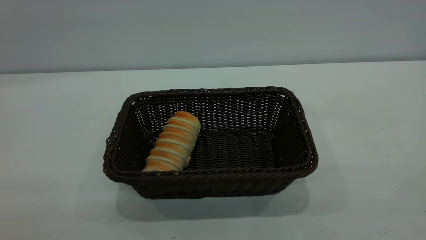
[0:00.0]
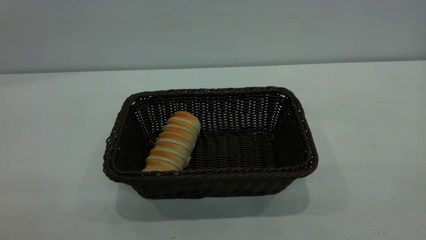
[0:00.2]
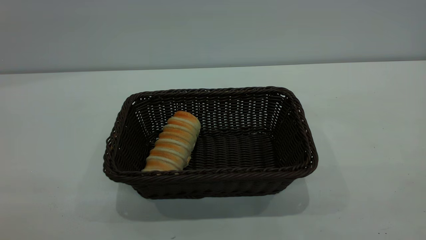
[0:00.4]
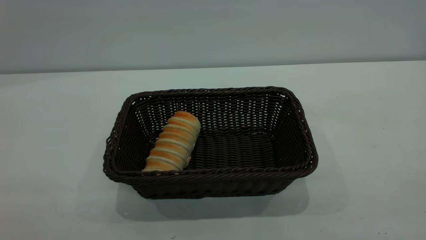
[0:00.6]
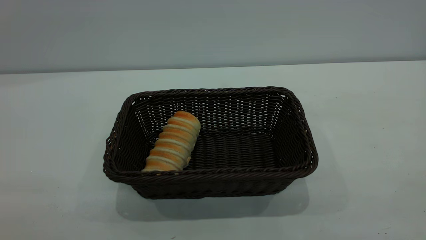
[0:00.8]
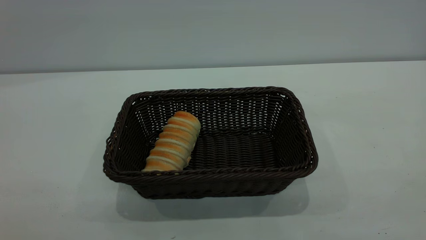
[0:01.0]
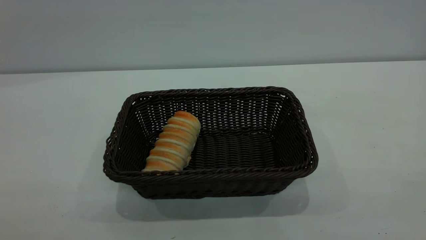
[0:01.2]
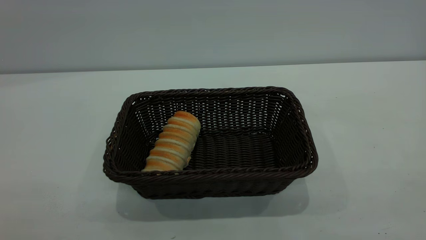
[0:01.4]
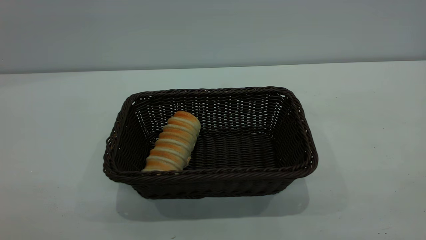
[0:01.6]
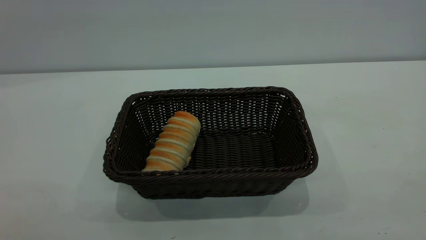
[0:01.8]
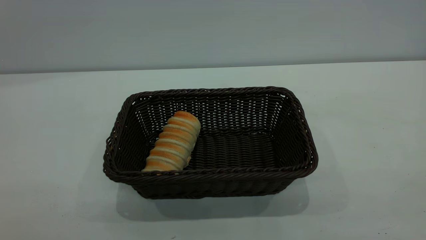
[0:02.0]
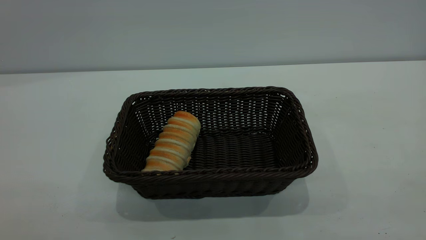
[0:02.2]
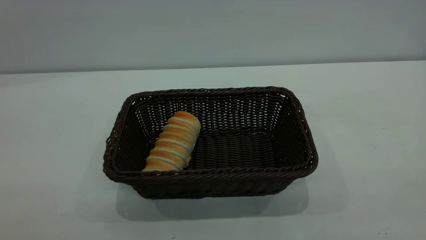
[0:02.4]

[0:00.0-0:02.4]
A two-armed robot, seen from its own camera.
Task of the whole recording: One hand grasps the black basket and places it in the middle of the table, while the other hand picks up the long bread and puts it into the black basket.
0:00.0 to 0:02.4: Both grippers stay about where they are.
